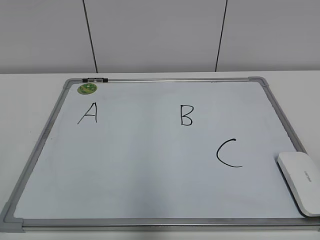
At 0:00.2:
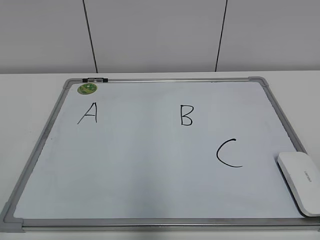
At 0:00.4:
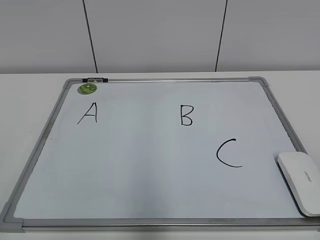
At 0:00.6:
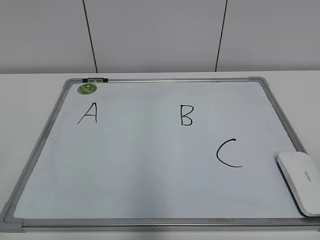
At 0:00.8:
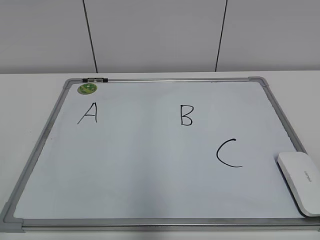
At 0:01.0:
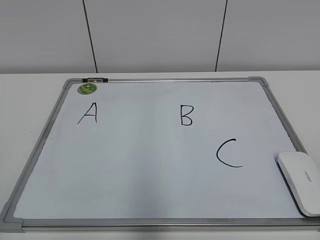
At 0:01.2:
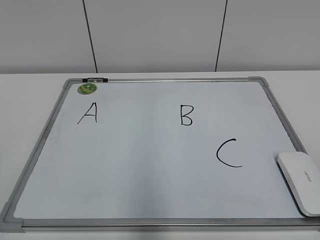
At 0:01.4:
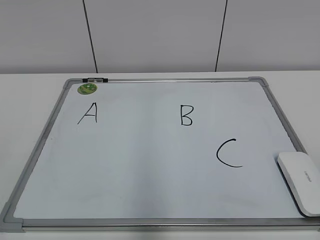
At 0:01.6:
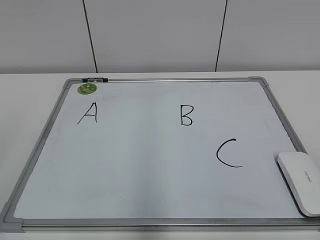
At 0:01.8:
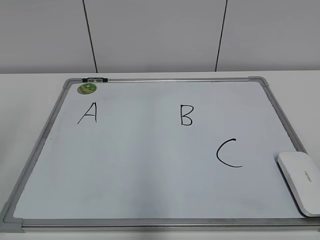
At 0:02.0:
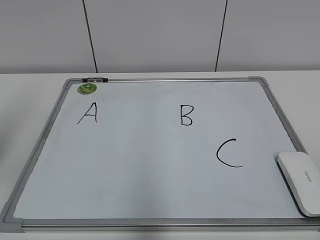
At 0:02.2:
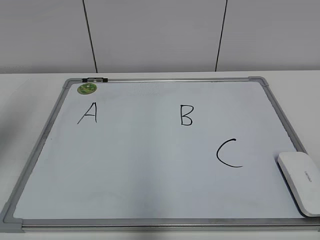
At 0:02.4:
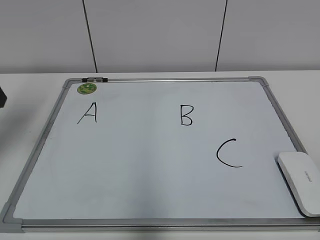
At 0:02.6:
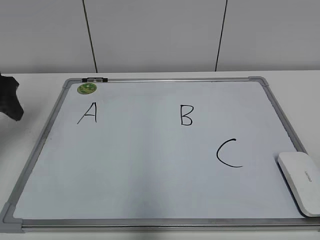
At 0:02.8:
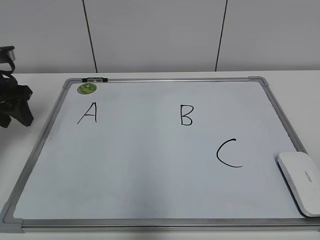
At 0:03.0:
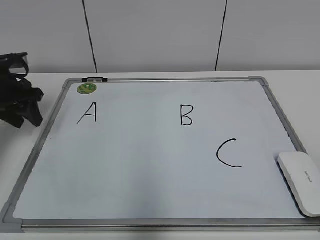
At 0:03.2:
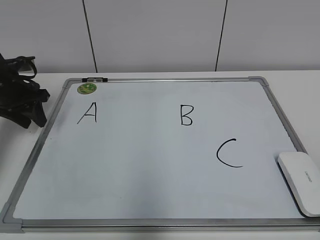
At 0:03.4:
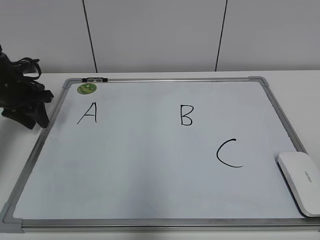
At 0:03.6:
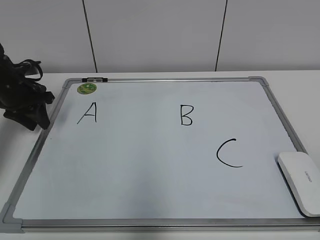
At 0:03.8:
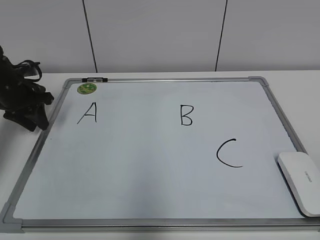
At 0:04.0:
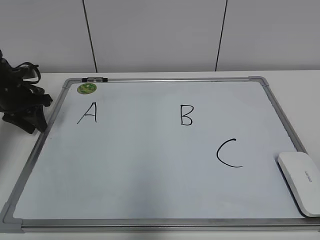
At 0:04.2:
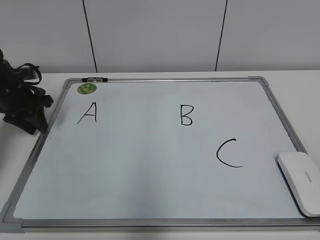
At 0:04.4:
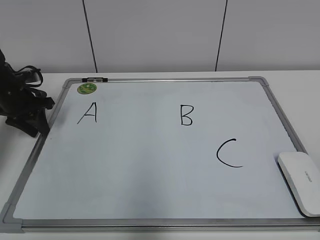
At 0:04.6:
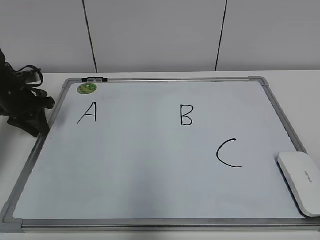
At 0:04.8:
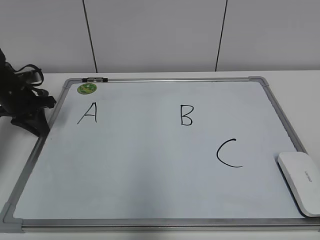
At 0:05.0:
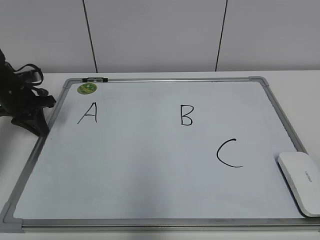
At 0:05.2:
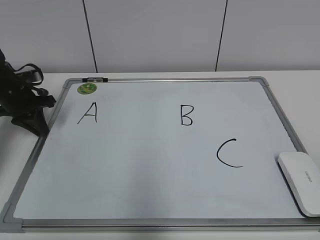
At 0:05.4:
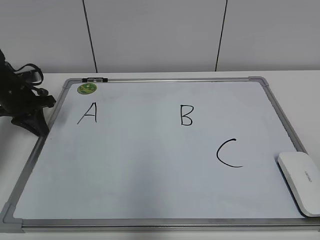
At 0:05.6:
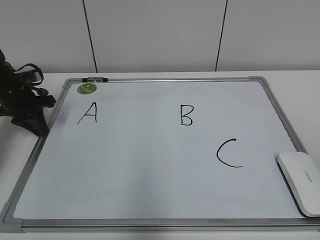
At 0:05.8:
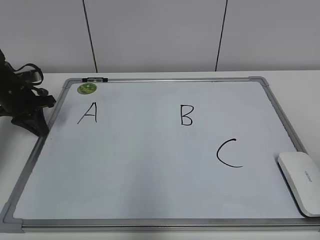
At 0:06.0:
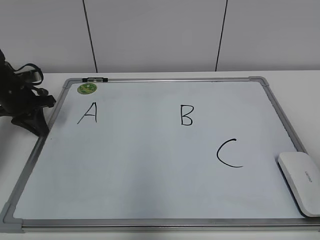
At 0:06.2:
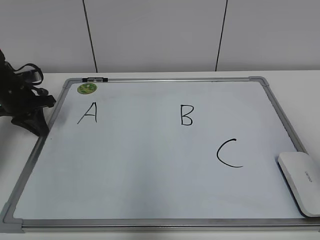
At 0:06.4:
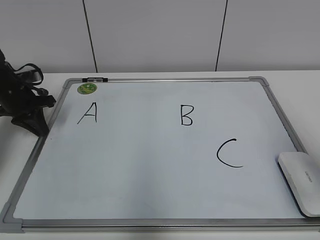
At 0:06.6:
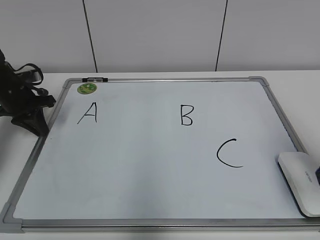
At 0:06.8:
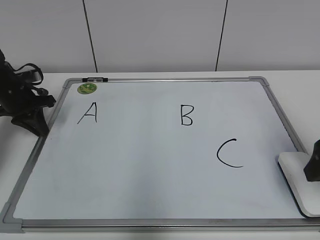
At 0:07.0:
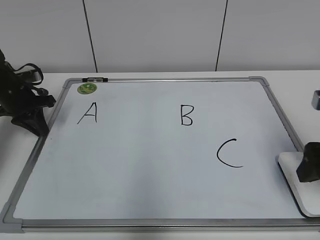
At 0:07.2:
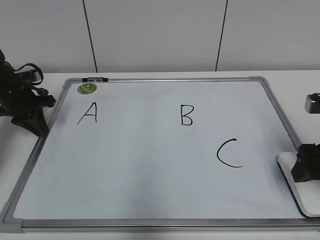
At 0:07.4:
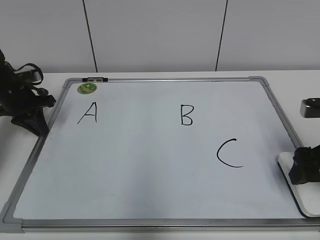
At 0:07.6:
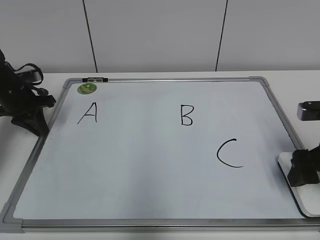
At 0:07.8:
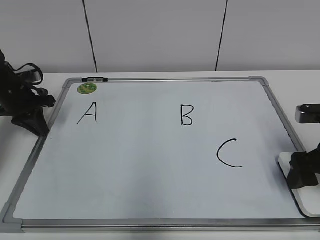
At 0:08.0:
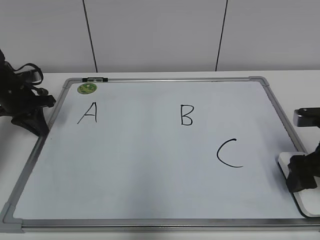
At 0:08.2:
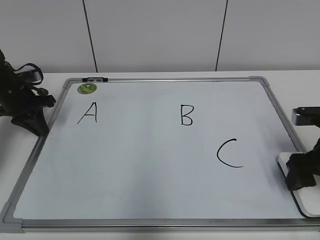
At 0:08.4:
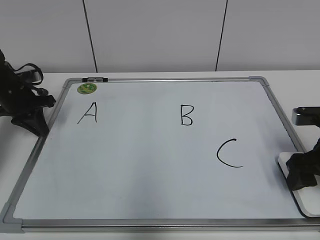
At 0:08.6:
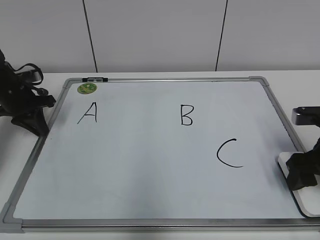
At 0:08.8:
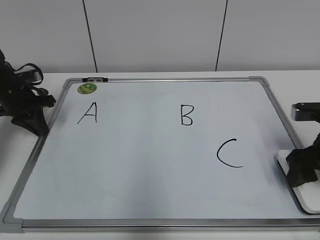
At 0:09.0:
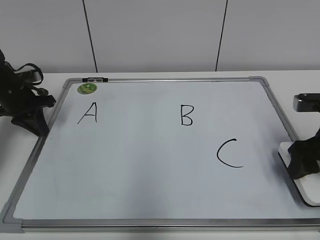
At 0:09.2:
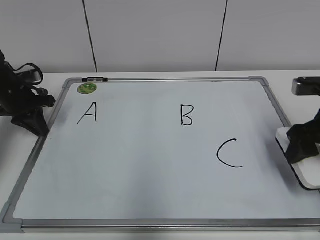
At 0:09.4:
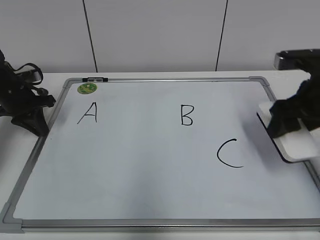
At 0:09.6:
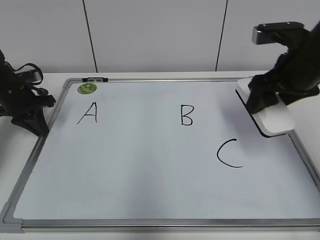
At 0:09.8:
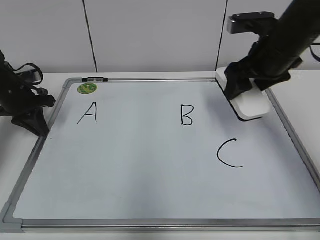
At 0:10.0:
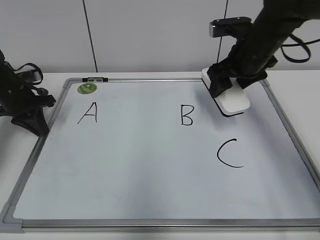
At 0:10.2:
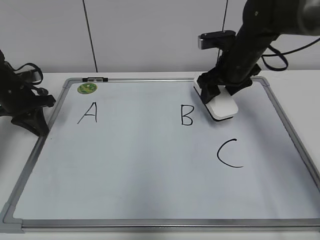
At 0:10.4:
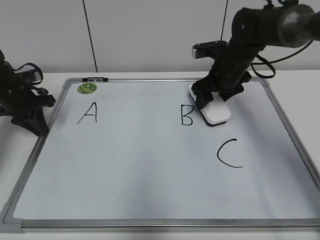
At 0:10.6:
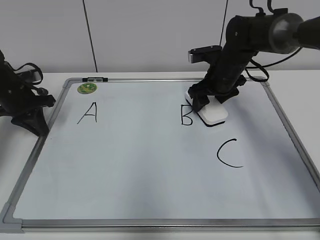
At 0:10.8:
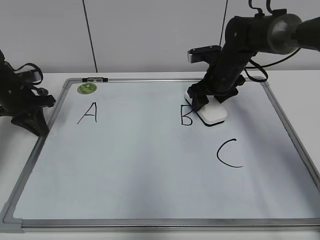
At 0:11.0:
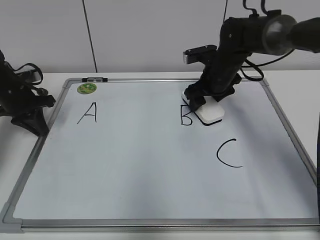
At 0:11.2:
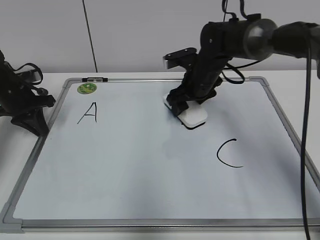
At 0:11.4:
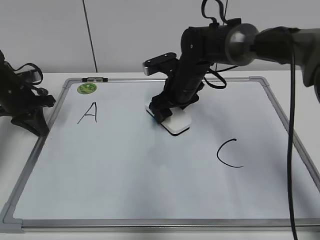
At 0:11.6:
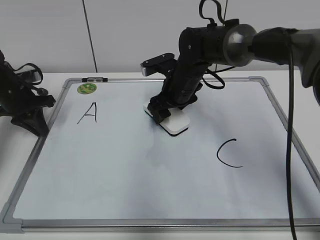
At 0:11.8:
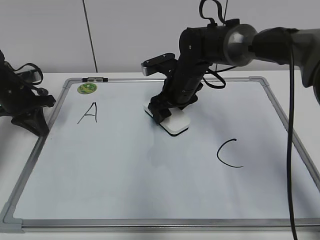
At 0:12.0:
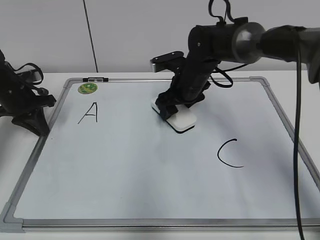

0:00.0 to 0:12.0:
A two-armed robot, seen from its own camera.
Task of the whole recording: pick up the eraser on the blackboard and erase the letter "B".
Step, 0:00.0 to 0:05.4: Hold the drawing board steady with your left hand.
0:01.6 to 0:03.0: The left gripper moves forward and downward, roughly 35 cm.
0:03.0 to 0:04.4: The left gripper shifts approximately 5 cm downward.
0:04.4 to 0:06.0: The left gripper closes its fingers.
0:06.0 to 0:07.6: The right gripper goes some 20 cm forward and downward, and opens up.
0:07.6 to 0:09.0: The right gripper closes its fingers.
0:09.0 to 0:10.4: The right gripper goes approximately 25 cm forward and to the left.
0:10.4 to 0:12.0: The right gripper goes roughly 10 cm to the left.

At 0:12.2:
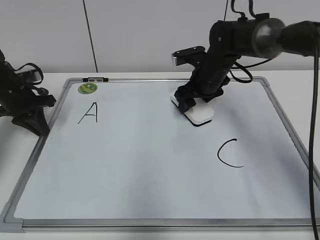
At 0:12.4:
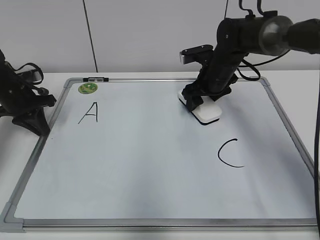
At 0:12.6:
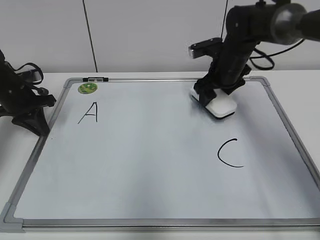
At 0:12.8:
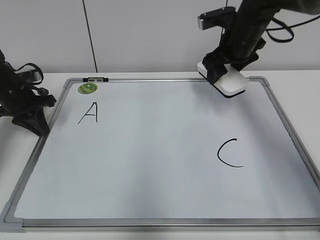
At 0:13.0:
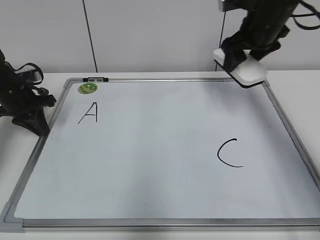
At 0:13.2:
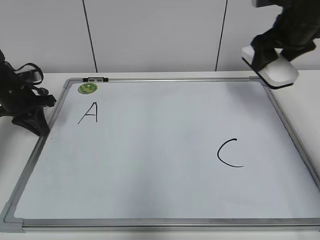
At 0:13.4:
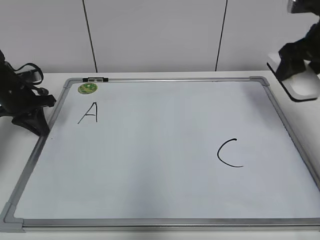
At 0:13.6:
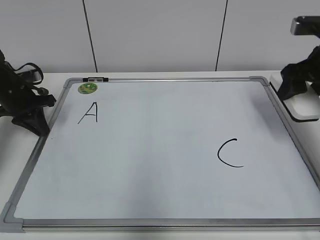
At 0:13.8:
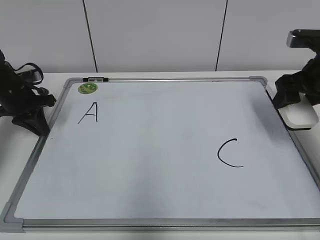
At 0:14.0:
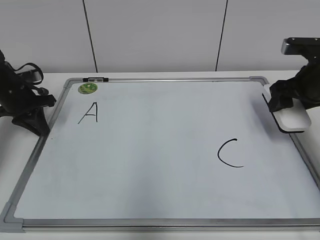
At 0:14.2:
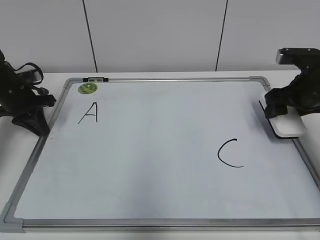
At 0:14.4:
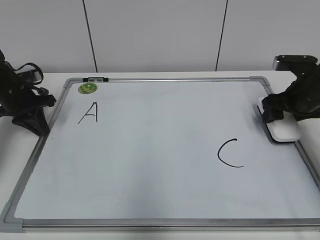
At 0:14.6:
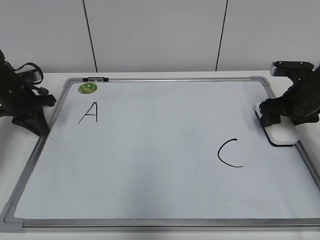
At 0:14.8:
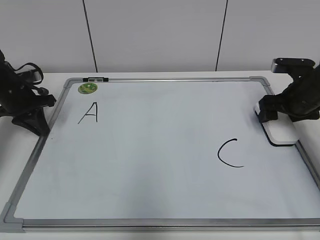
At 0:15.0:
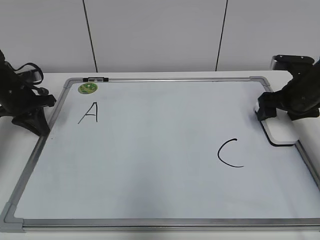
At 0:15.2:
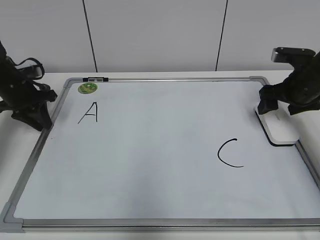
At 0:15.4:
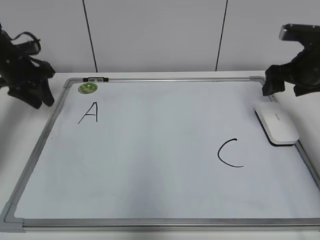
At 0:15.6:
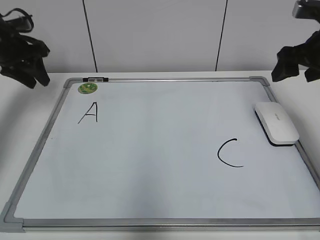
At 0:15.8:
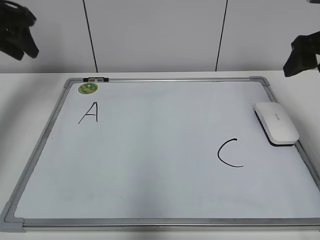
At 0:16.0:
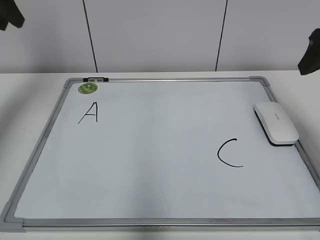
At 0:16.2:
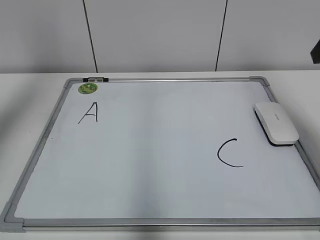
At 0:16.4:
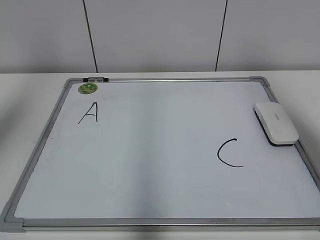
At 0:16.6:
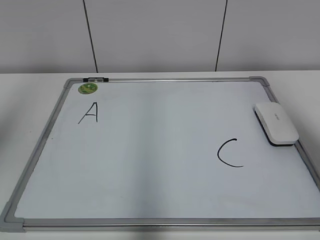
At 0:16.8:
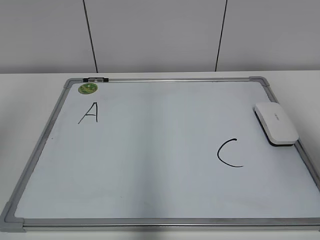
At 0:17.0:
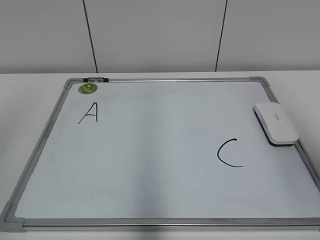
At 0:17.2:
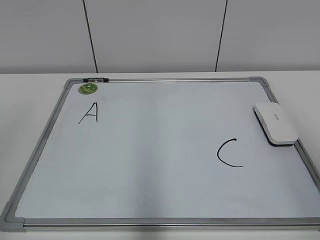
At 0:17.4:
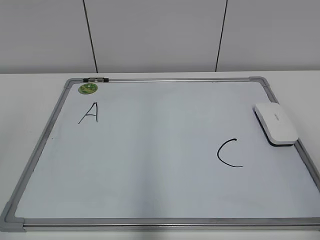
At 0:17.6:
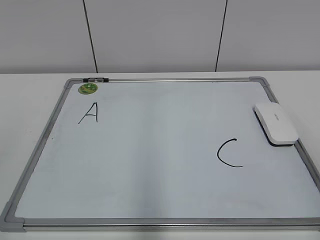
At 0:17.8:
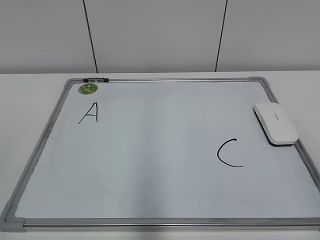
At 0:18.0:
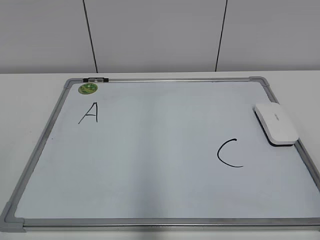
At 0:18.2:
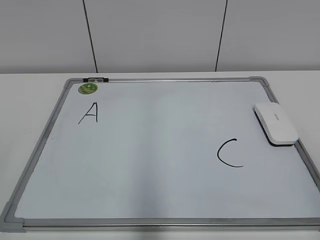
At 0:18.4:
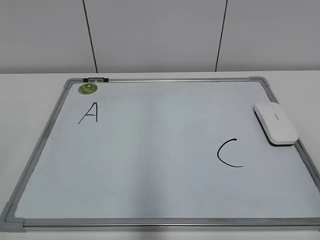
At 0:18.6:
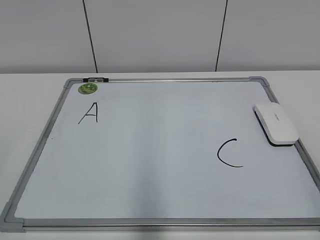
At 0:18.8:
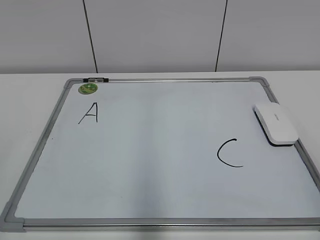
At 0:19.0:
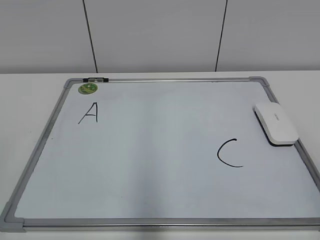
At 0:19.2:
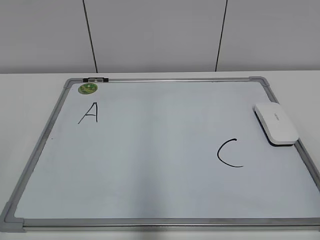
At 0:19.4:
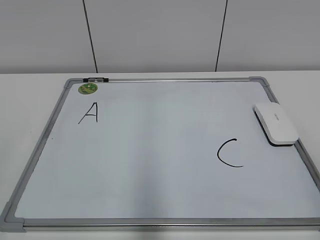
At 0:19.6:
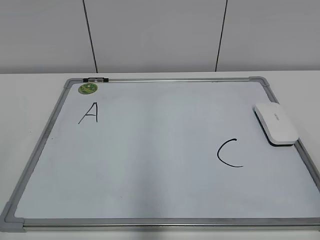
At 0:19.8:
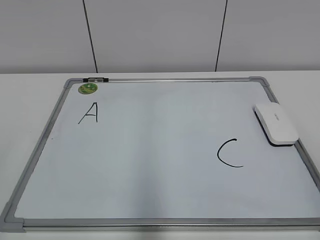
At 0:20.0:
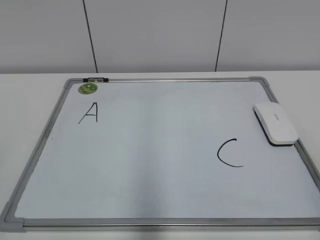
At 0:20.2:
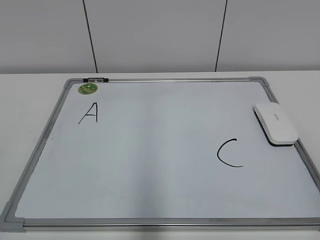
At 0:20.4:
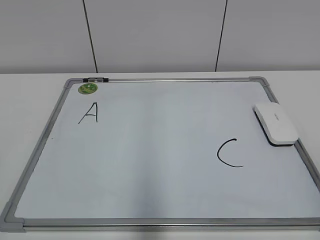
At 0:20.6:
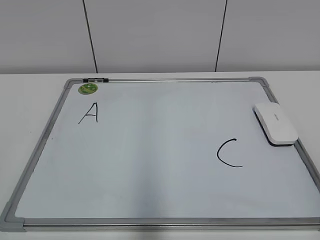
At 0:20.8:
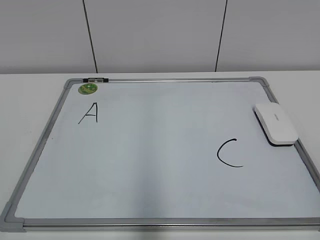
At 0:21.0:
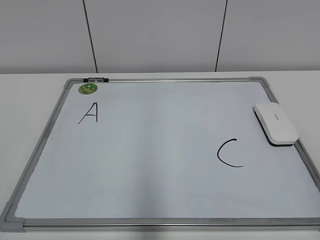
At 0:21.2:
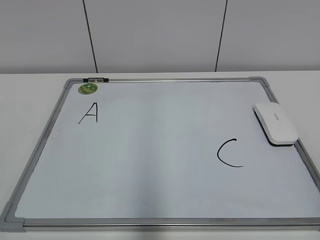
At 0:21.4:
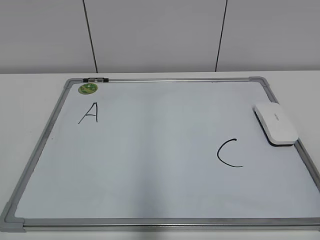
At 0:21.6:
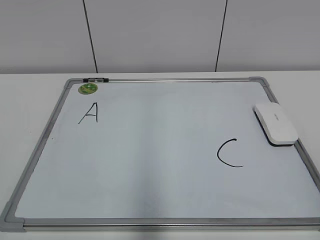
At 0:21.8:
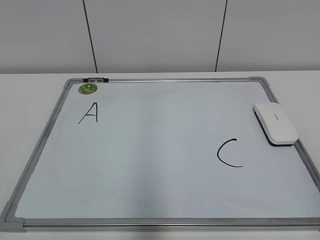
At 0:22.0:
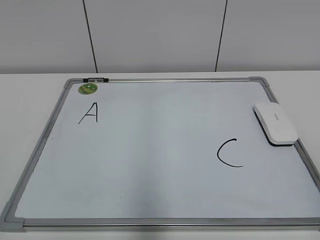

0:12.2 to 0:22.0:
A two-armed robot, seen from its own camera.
Task of the whole recording: pick up the eraser on the blackboard and erase the letter "B".
Step, 0:12.6 to 0:14.8: Put down the eraser with your right hand.
0:12.2 to 0:13.6: The right gripper moves to the right, backward and upward, approximately 20 cm.
0:13.6 to 0:15.0: The right gripper heads downward, covering approximately 10 cm, and opens.
0:15.0 to 0:16.4: Both grippers move upward and backward, roughly 30 cm. The left gripper opens. Meanwhile the right gripper closes.
0:16.4 to 0:17.8: The right gripper moves backward, about 25 cm. The left gripper travels backward and downward by approximately 25 cm.
0:20.6 to 0:22.0: The two grippers keep their place.
